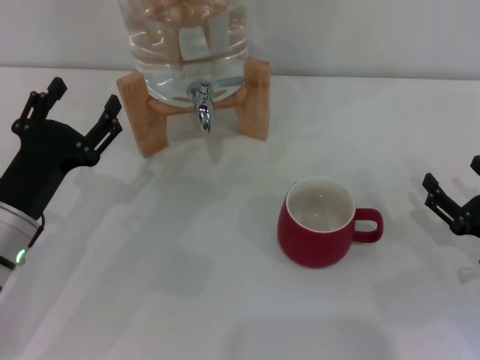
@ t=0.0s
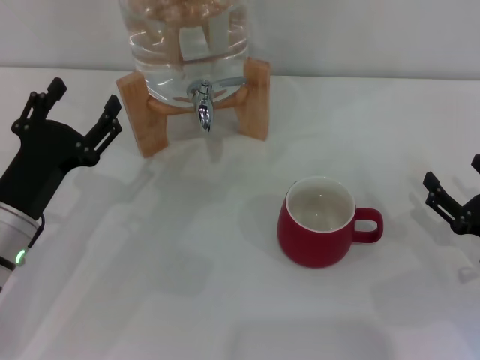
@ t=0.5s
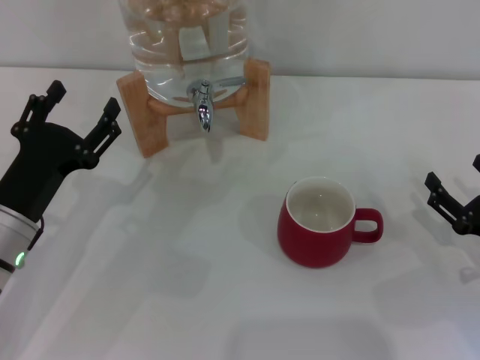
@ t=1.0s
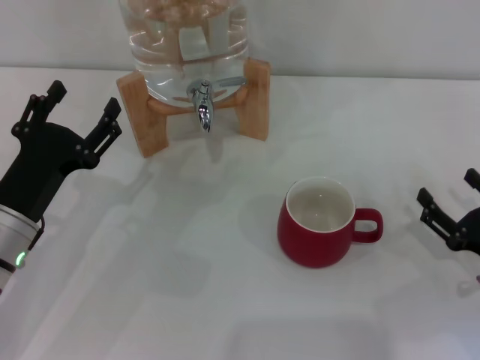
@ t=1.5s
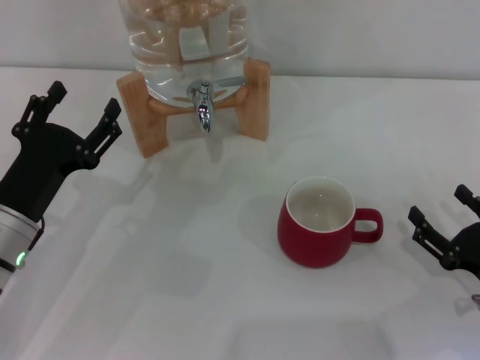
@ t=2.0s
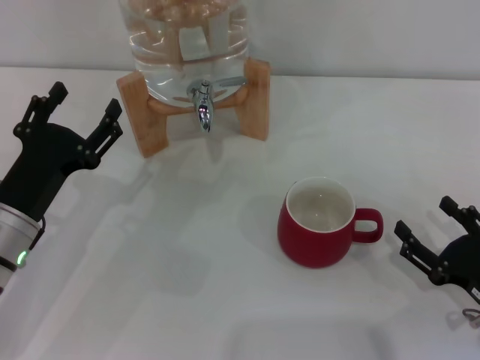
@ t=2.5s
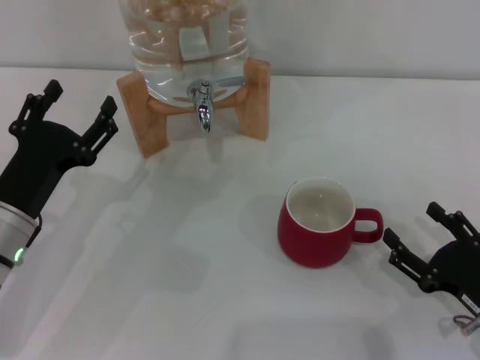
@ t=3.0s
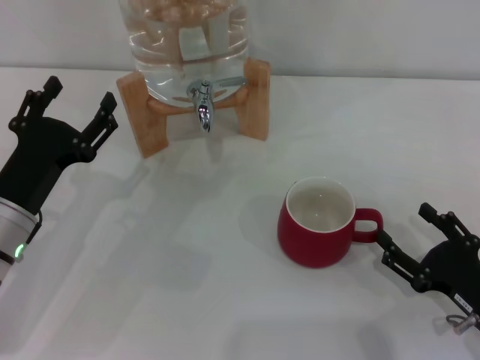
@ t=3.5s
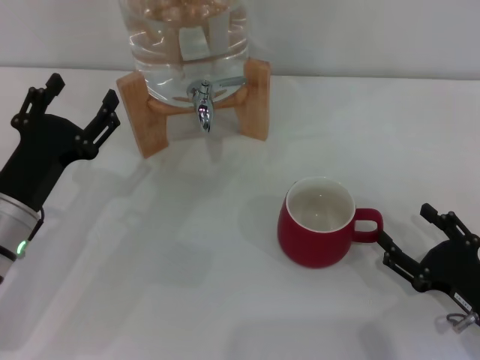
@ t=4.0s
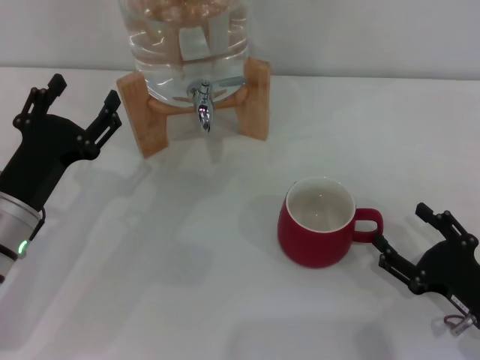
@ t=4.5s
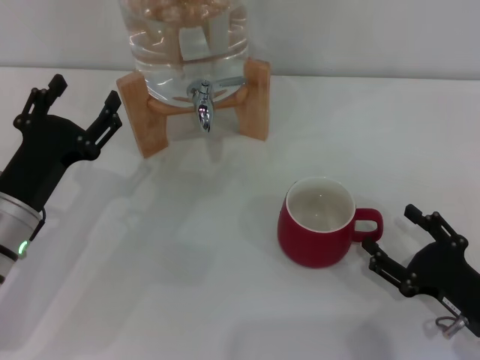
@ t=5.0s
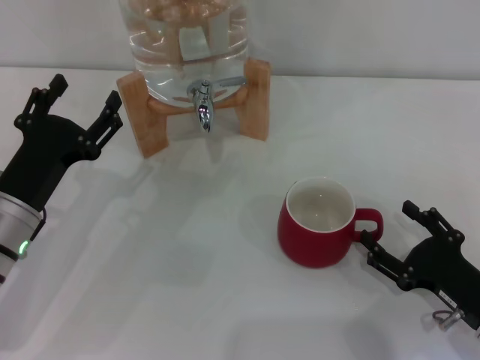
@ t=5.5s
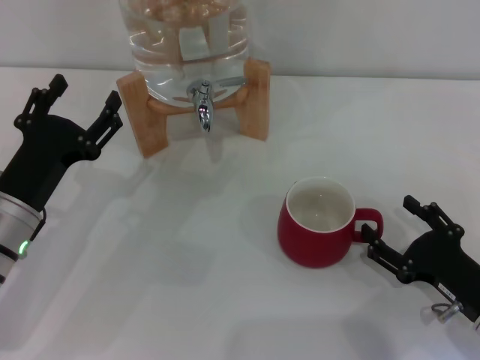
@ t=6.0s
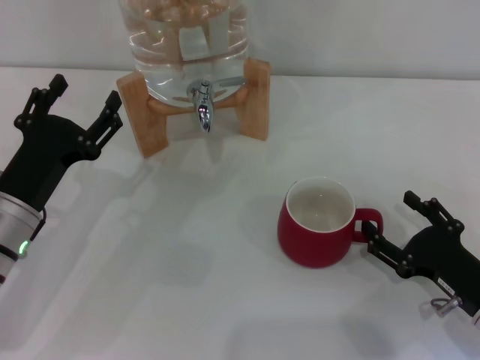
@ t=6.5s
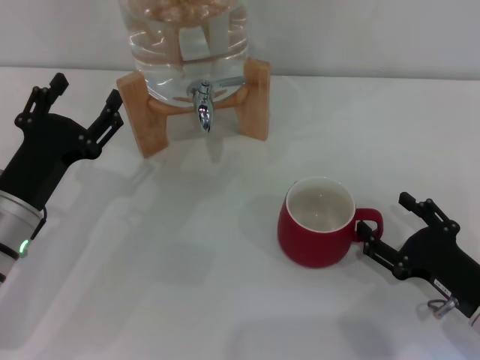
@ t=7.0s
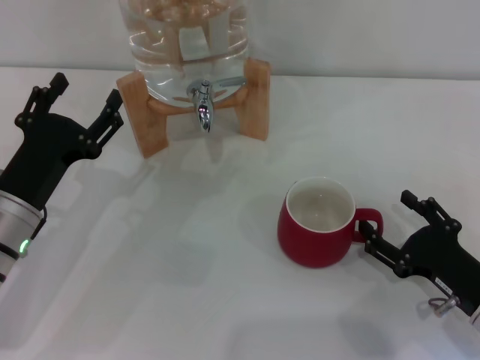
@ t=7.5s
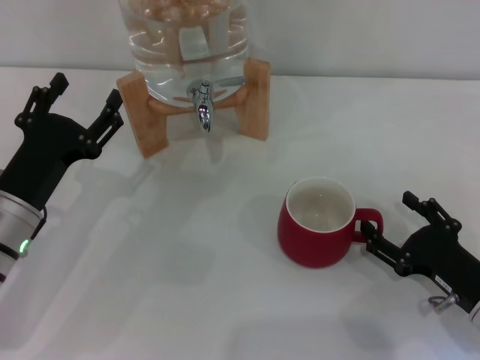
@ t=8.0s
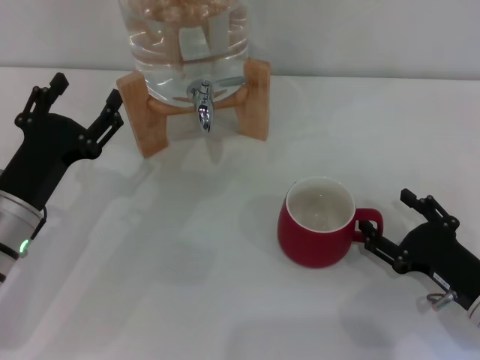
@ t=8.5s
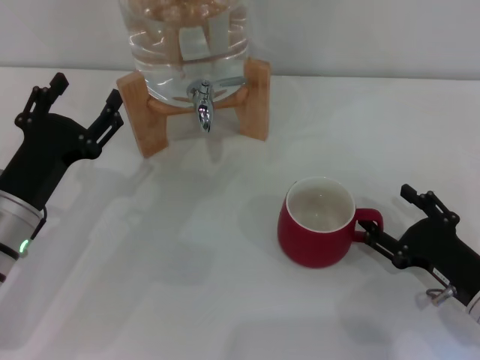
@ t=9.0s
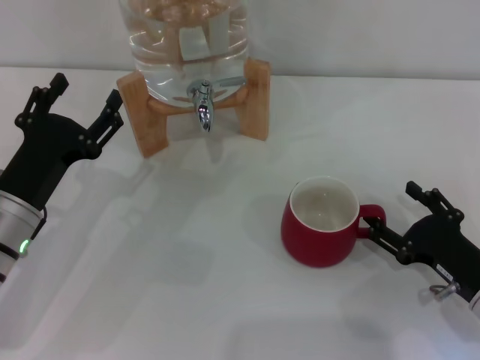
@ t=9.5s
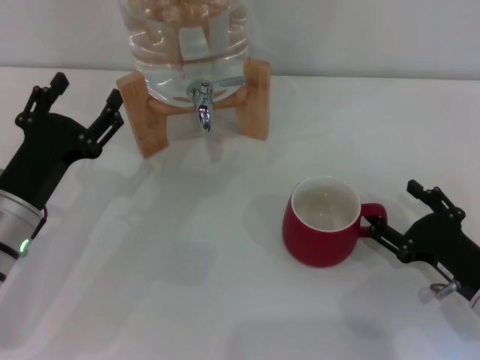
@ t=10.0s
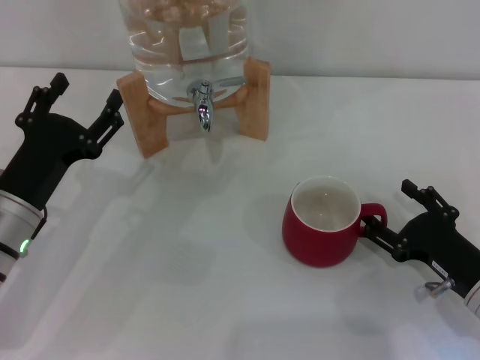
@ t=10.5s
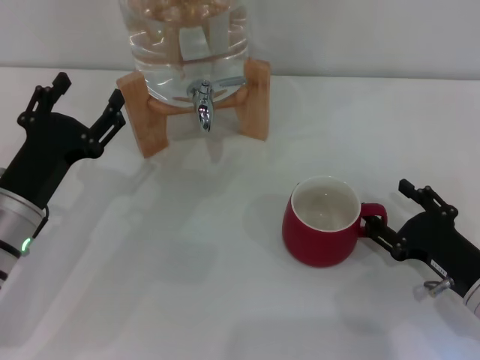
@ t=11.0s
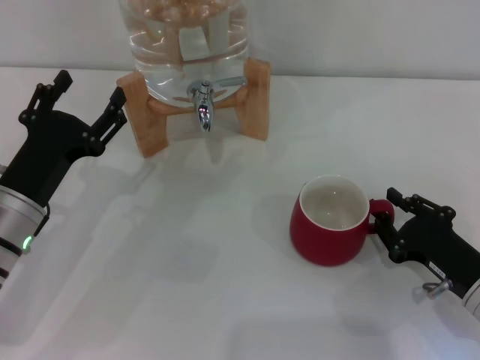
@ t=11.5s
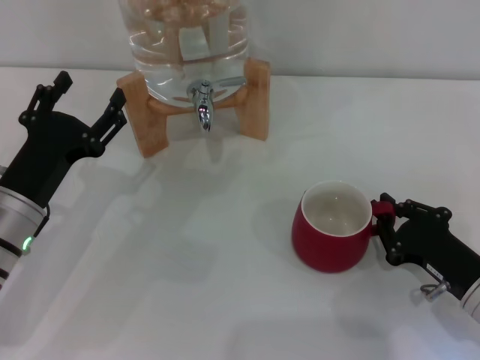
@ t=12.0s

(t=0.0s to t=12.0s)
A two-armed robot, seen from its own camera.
Task of the whole recording: the right gripper pick up the red cup and place it horizontally under the faucet, the left gripper turn on the faucet to fill the cup, and then turn off the faucet.
t=0.0s - t=6.0s: The grippers make only small movements.
t=6.0s - t=8.0s: Both grippers stay about where they are.
t=8.0s - t=10.0s: Both grippers stay about where they are.
t=10.0s - t=12.0s: The right gripper closes its fingers.

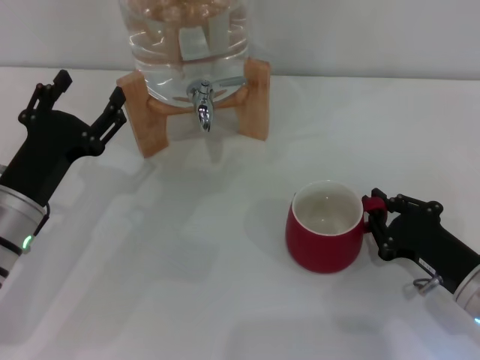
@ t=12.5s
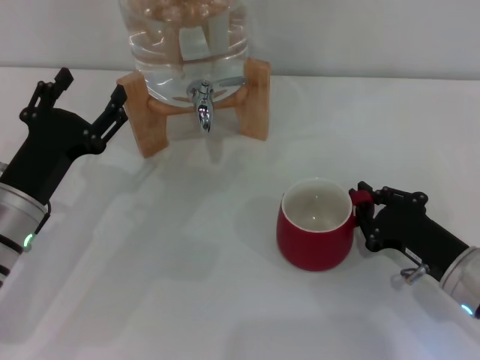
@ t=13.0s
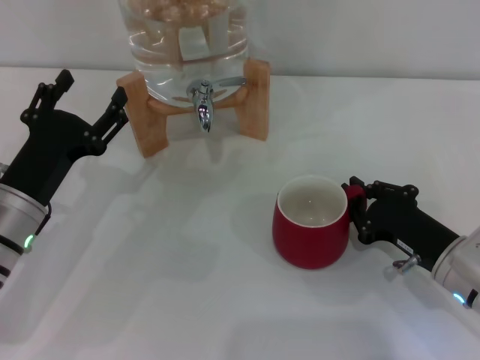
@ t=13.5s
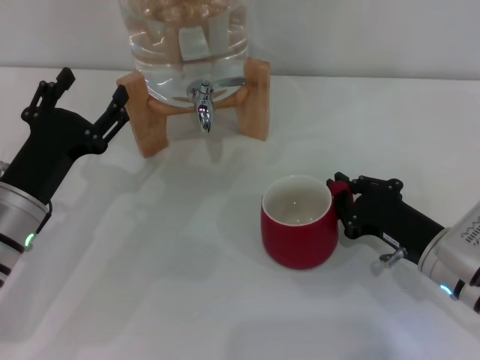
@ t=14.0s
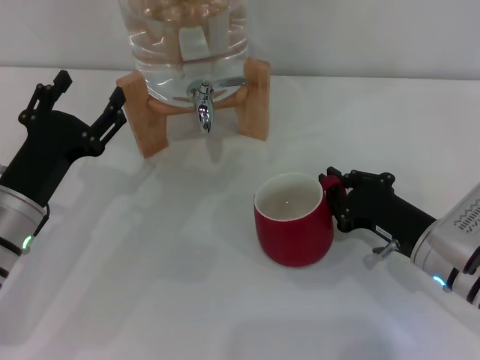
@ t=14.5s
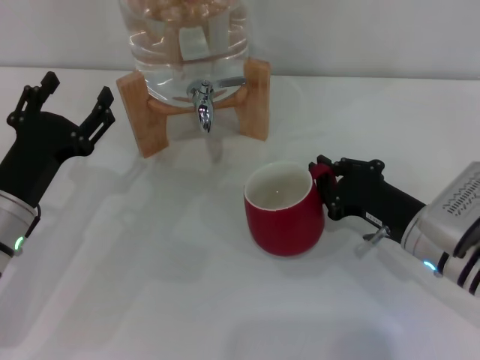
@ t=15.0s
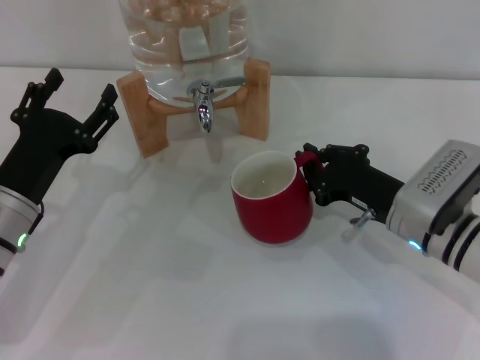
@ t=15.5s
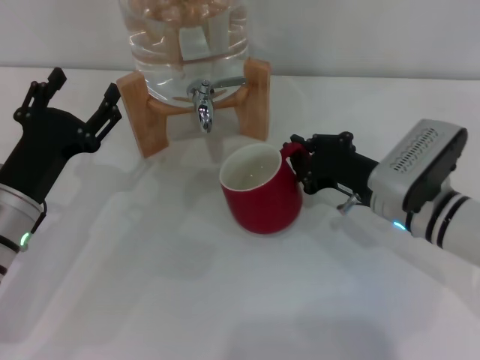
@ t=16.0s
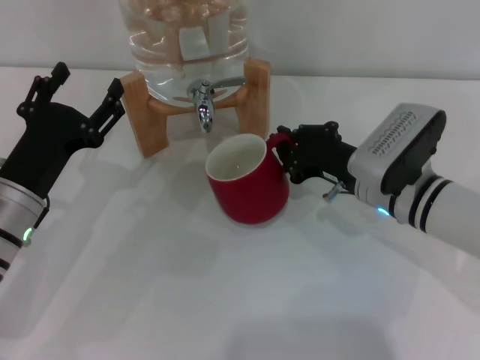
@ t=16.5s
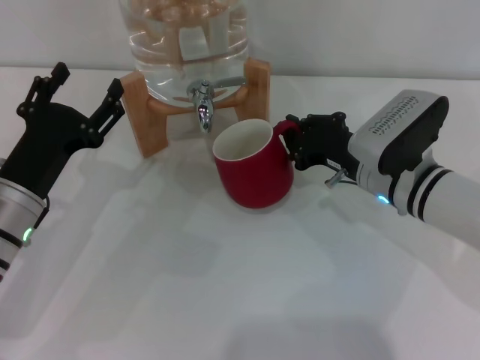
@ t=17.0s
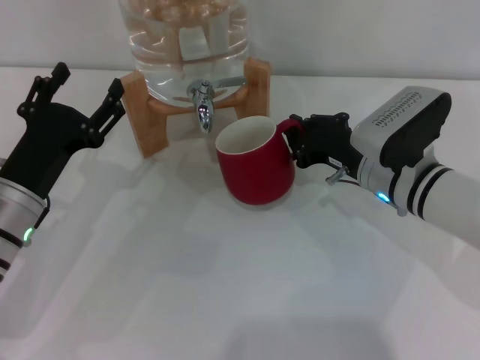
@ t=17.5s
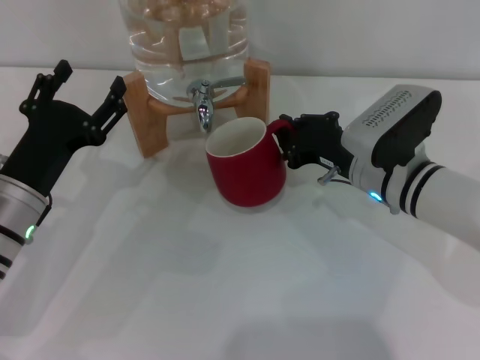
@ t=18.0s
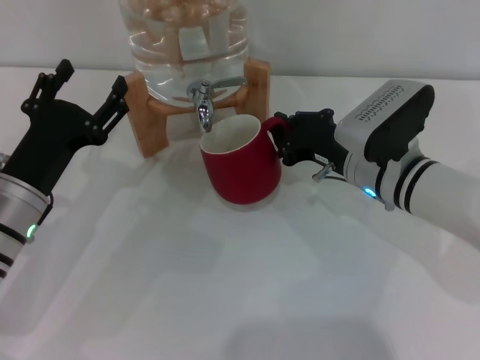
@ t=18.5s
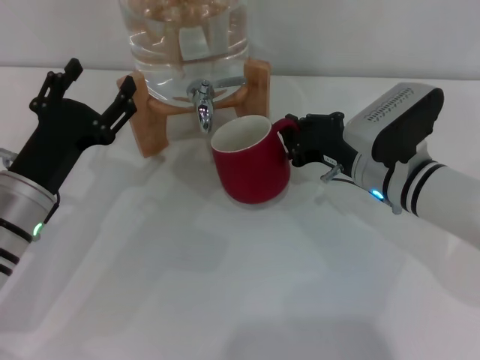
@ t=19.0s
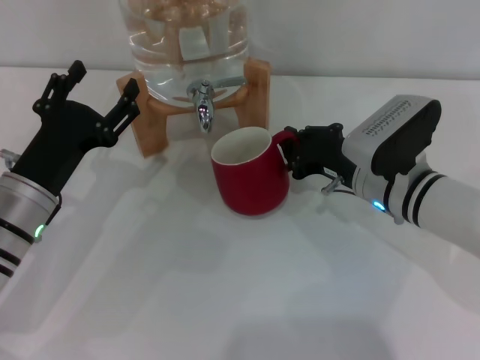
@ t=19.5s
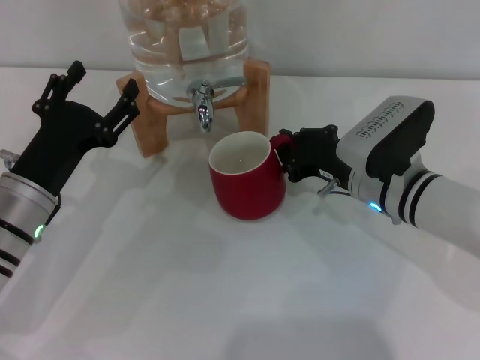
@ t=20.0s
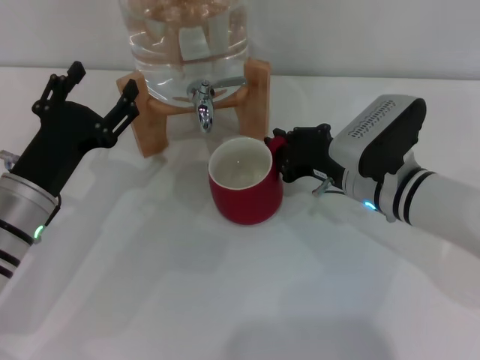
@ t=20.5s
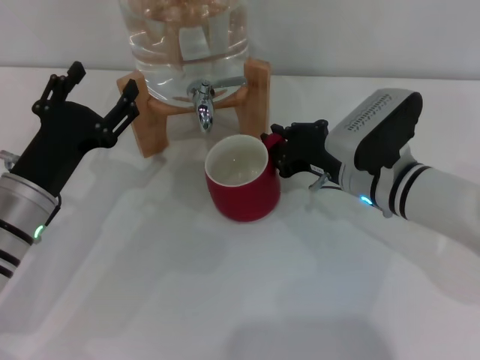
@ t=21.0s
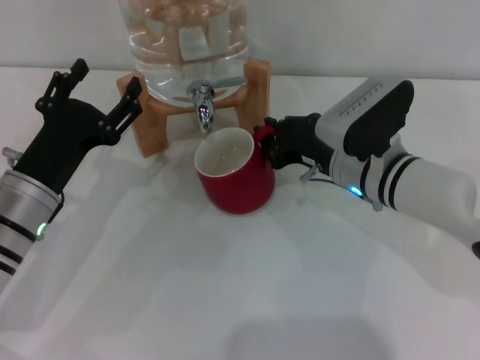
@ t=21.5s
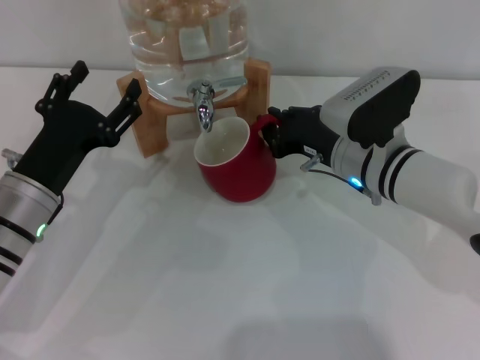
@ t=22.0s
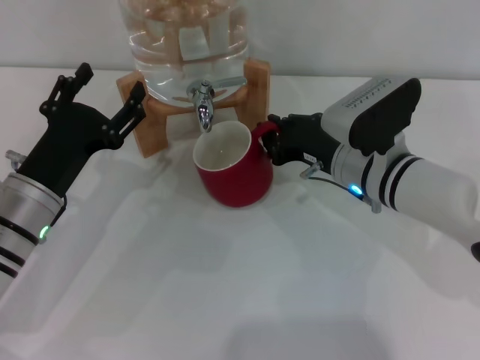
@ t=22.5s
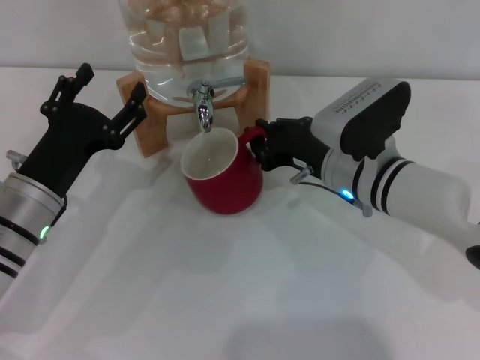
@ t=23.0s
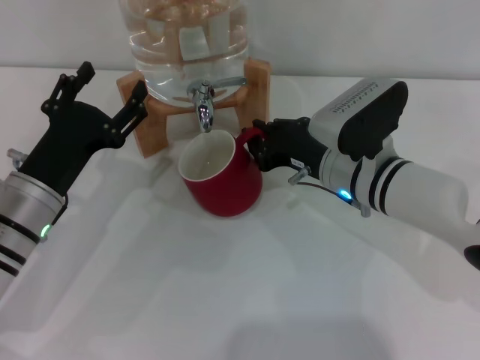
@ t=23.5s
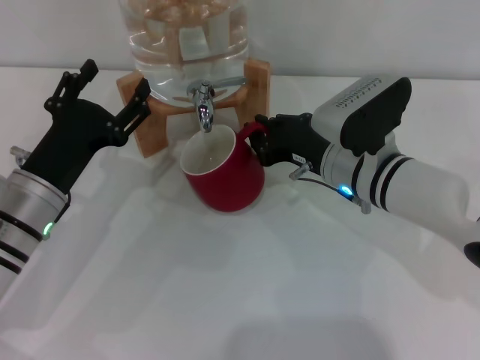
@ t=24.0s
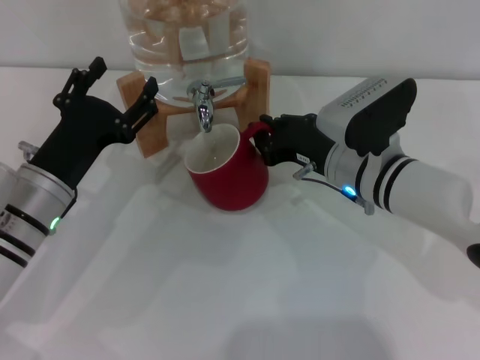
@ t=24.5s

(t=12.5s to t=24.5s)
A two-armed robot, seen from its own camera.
Task of the whole recording: the right gripper pick up the red cup and place it horizontally under the faucet, the left gripper turn on the faucet to fill the cup, and then turn off the faucet.
t=12.5s - t=14.5s: The right gripper changes place by roughly 5 cm.
t=14.5s - t=16.5s: The right gripper moves forward and to the left, some 10 cm.
t=16.5s - t=24.5s: The grippers make only small movements.

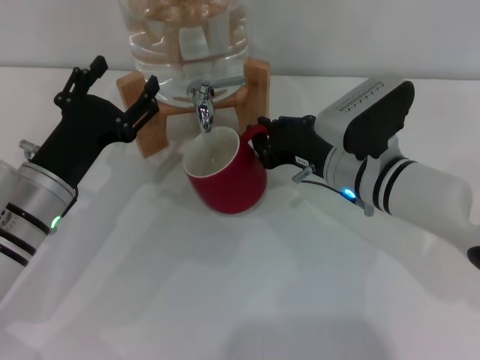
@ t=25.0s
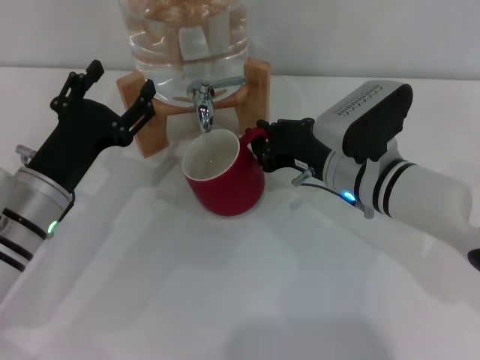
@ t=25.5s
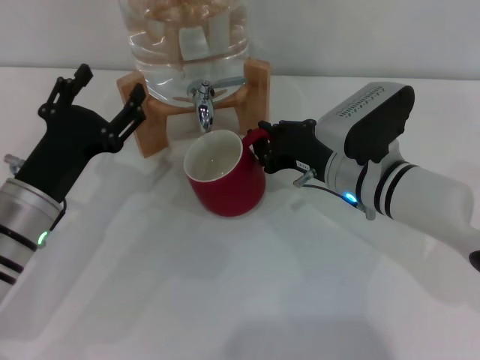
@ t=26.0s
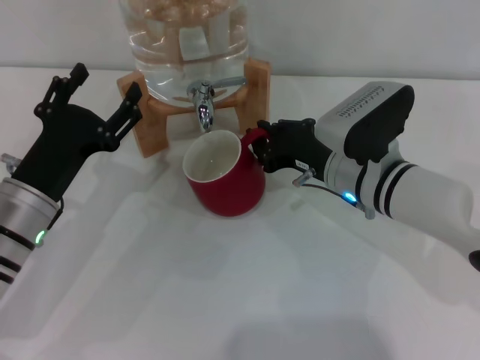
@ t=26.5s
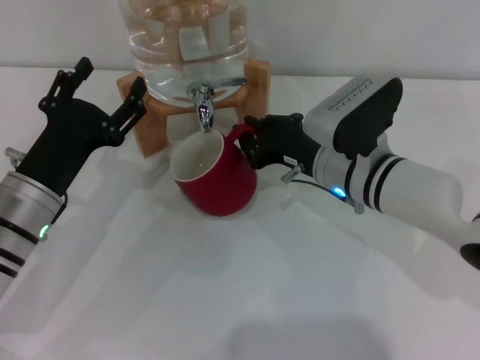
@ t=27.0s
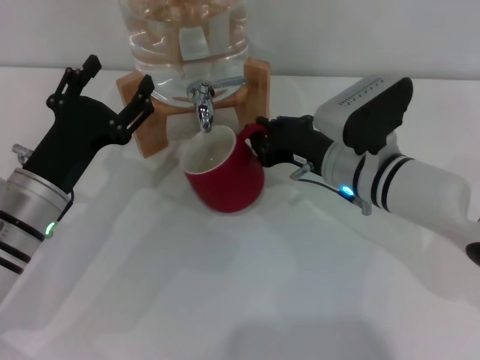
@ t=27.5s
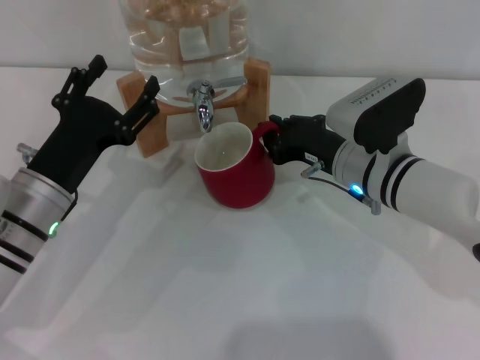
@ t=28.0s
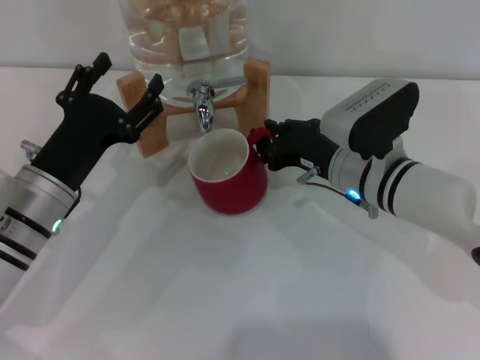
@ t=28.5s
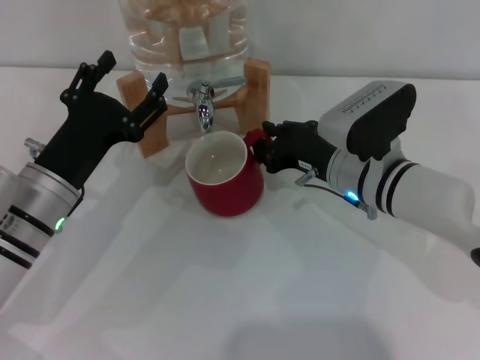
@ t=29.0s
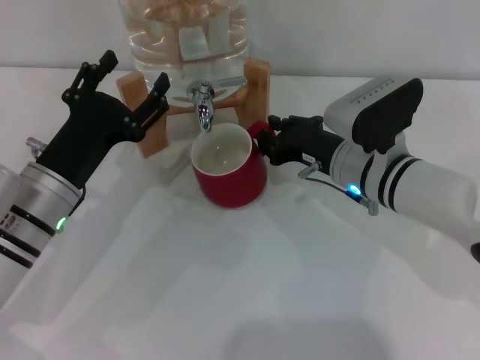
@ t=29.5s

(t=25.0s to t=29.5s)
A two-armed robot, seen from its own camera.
Task of the whole recording: the right gripper pick up the red cup and place it horizontally under the faucet, the left gripper turn on the faucet to fill the cup, and then turn off the faucet.
t=25.0s - t=29.5s: The grippers stay close to where they were, moving slightly.
